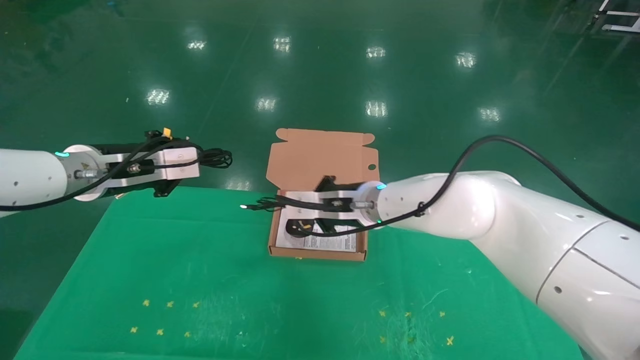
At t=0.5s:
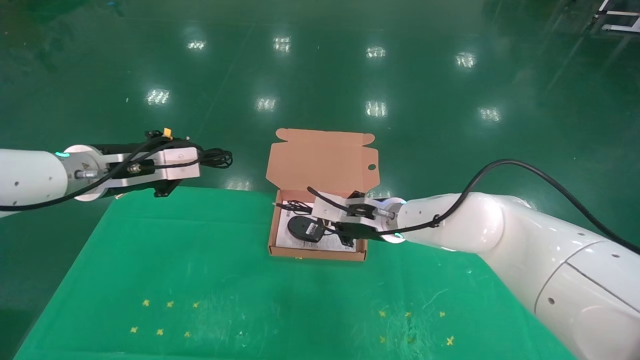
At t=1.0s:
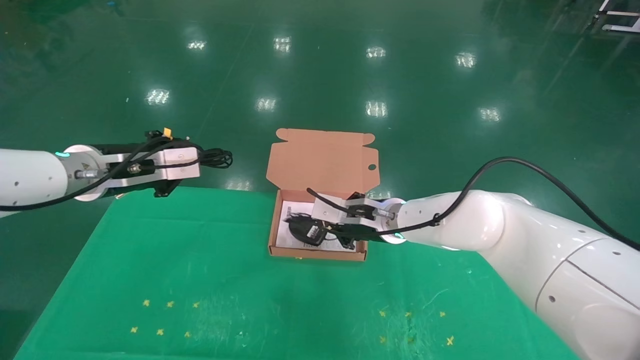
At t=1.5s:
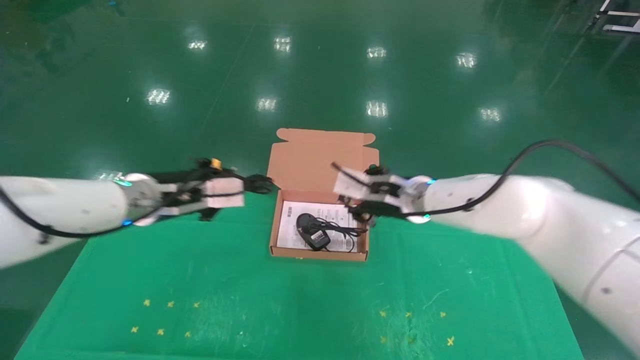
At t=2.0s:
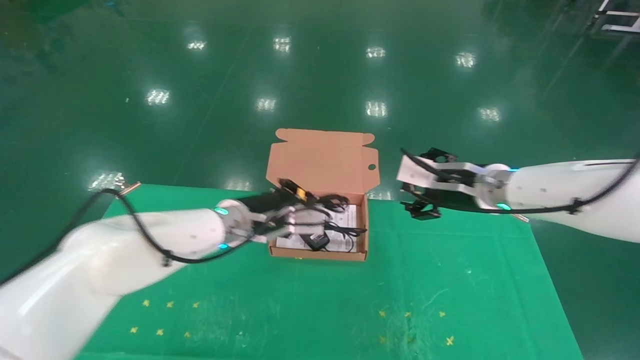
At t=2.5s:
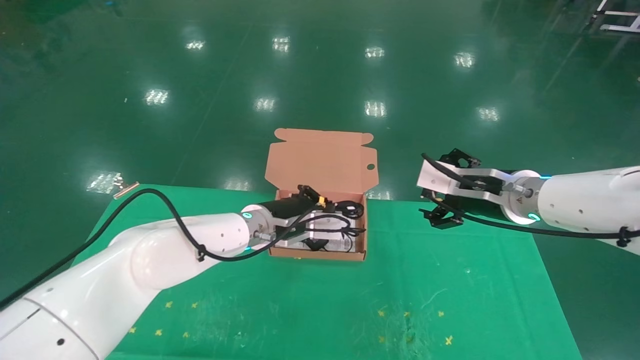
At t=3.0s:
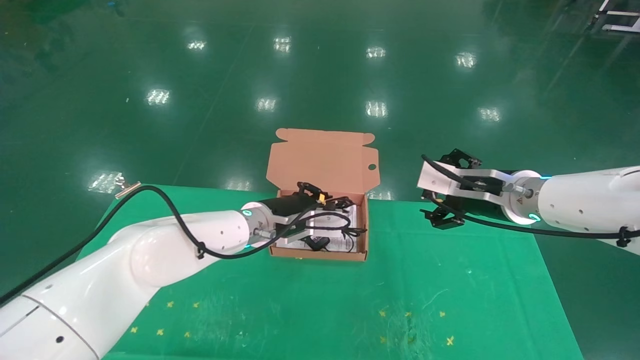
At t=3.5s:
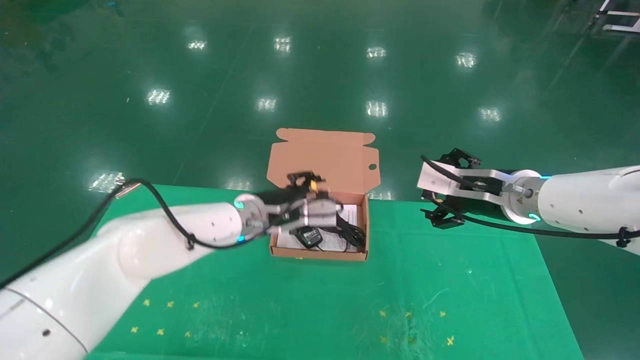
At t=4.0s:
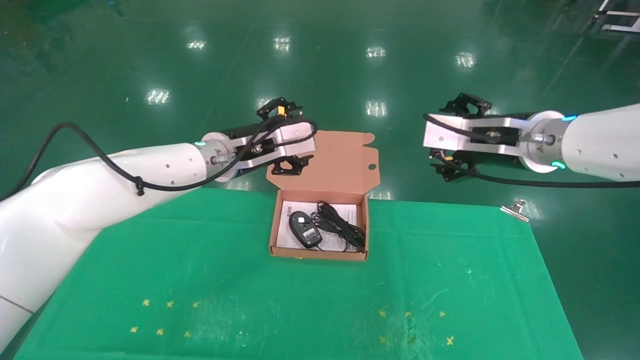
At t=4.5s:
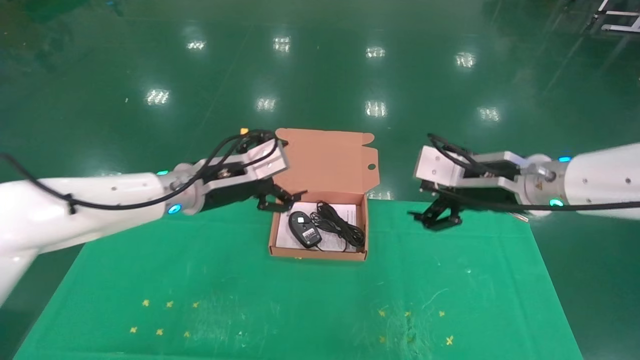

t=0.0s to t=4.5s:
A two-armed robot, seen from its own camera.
Task of the whole recording: grasp data cable left put into box grasp mouse right put into box.
Step, t=0.0s to t=3.0s: Place the mouse and power cord into the box.
t=0.0s to t=2.0s: The right gripper is displaced to the right by approximately 20 cm, and opens up. The left gripper goes about 20 cm to the right and downward.
t=2.0s to t=4.5s: The left gripper is displaced upward and to the left by approximately 10 cm, and opens up. The right gripper shifts approximately 5 cm backward.
